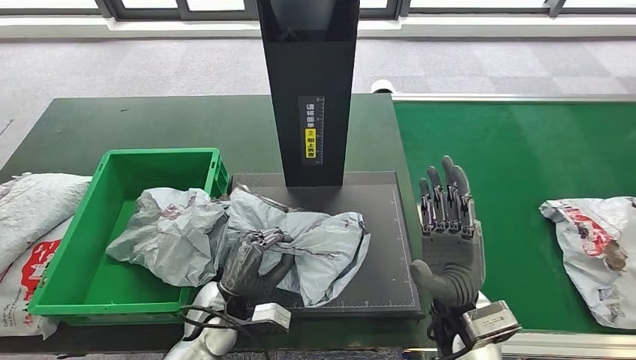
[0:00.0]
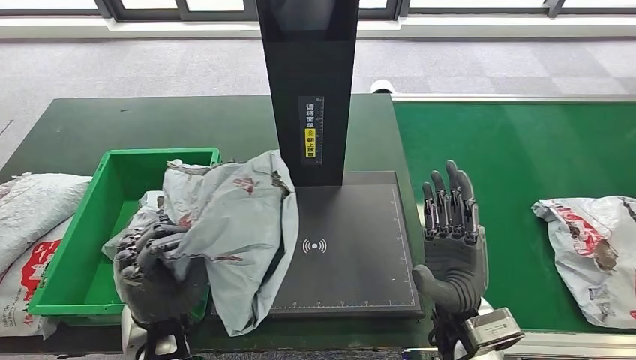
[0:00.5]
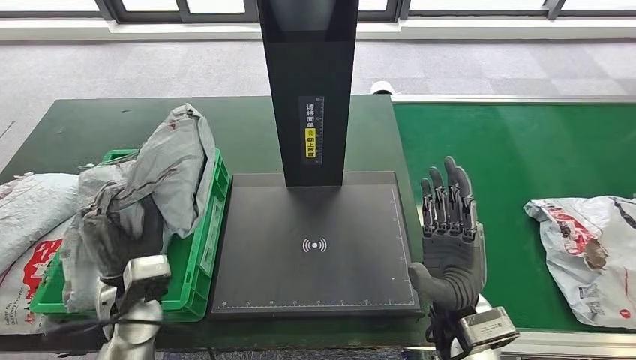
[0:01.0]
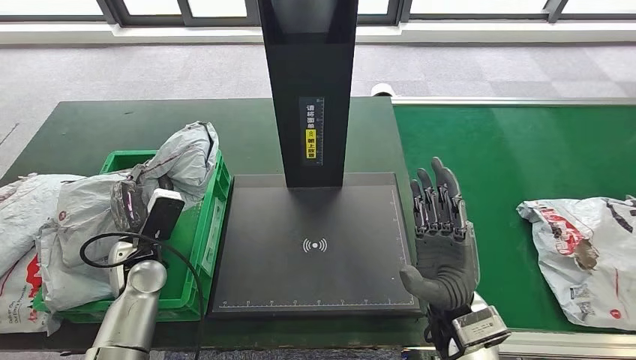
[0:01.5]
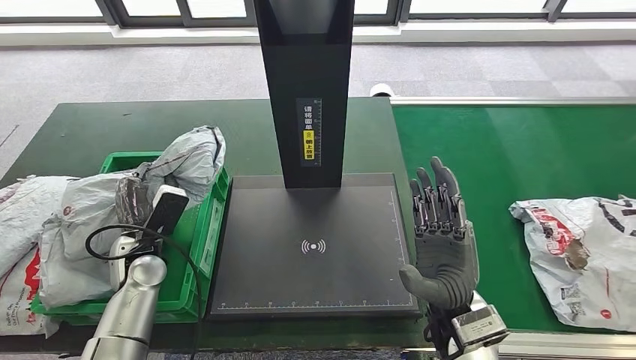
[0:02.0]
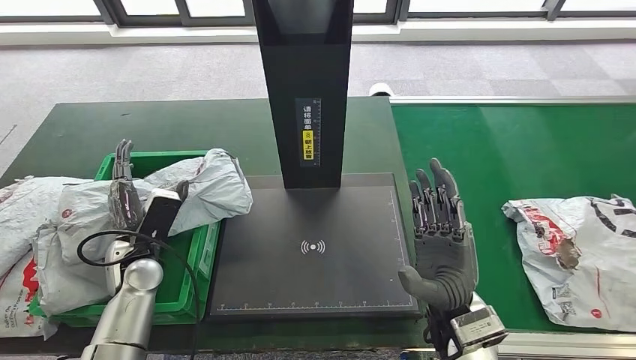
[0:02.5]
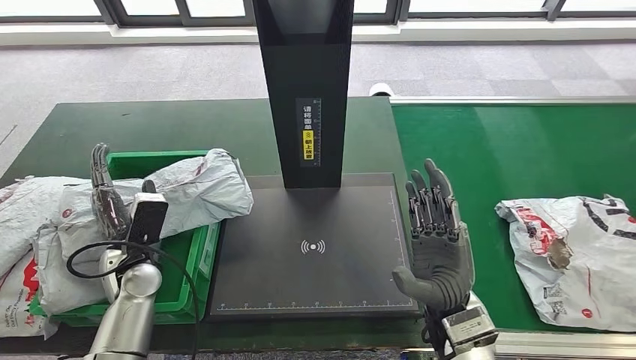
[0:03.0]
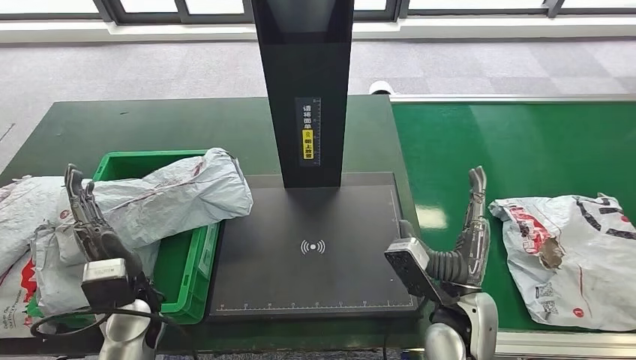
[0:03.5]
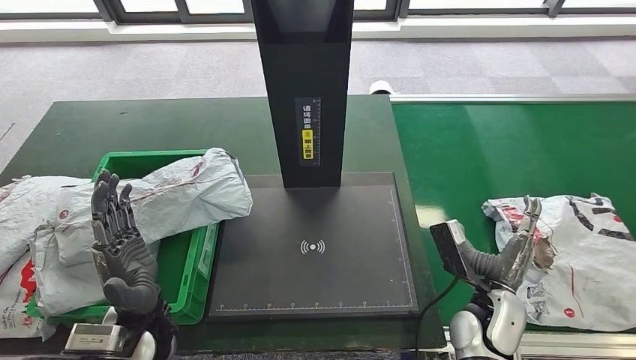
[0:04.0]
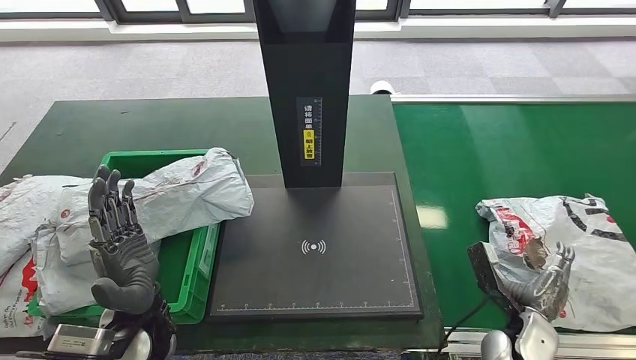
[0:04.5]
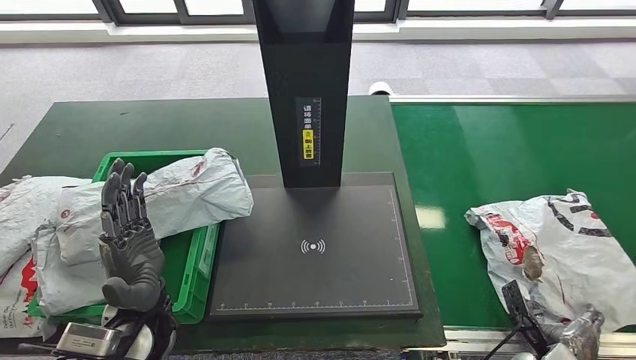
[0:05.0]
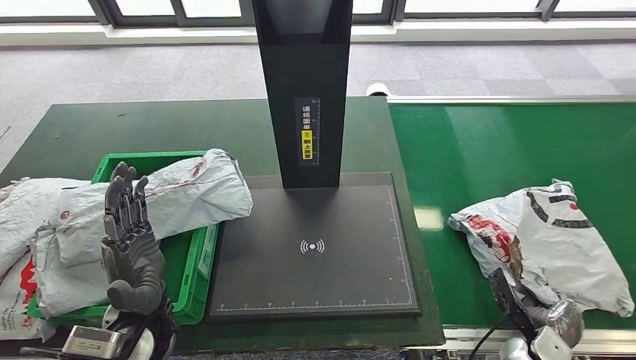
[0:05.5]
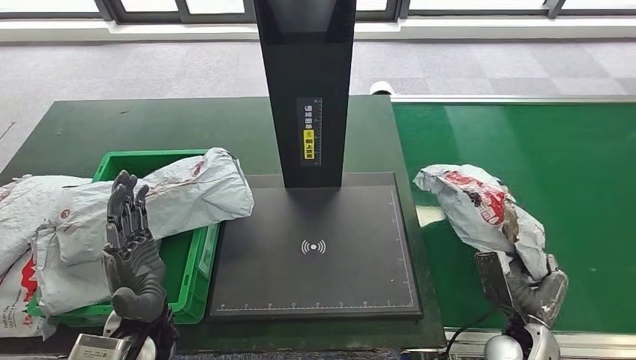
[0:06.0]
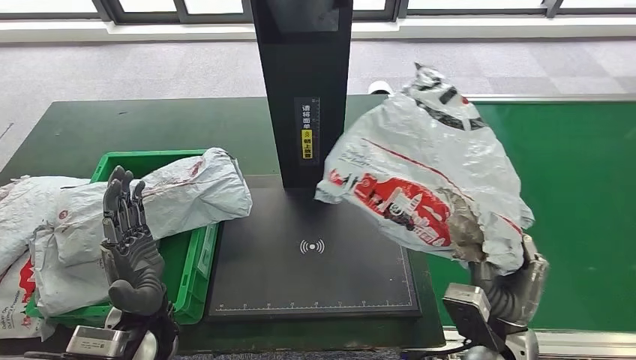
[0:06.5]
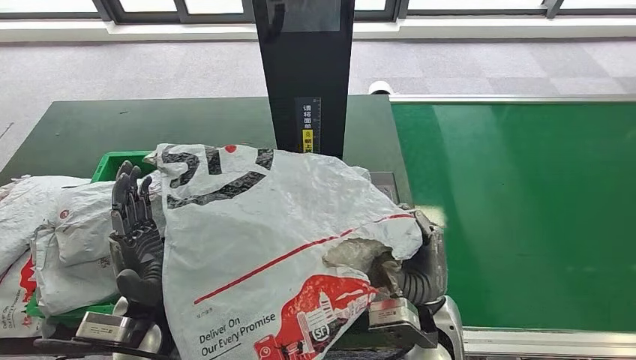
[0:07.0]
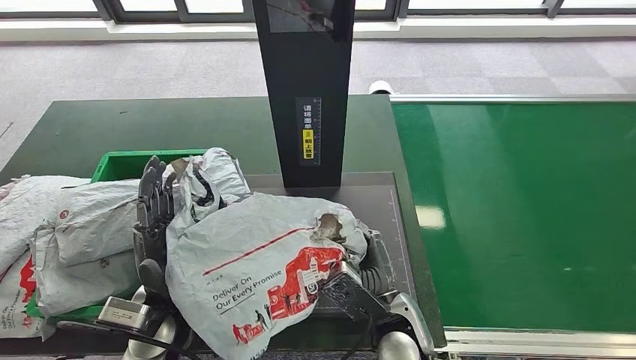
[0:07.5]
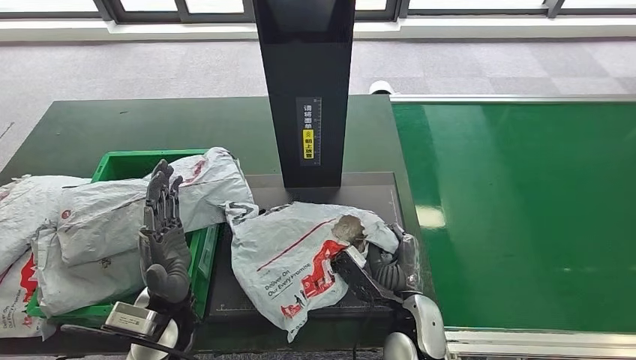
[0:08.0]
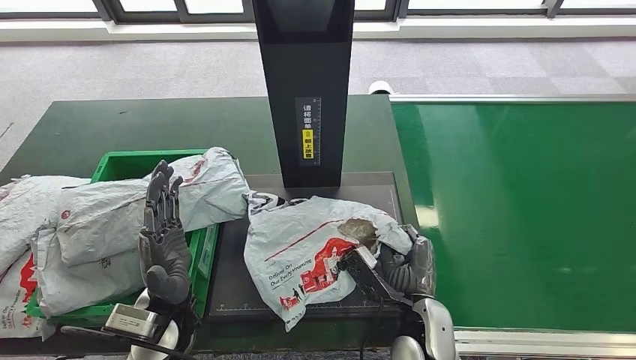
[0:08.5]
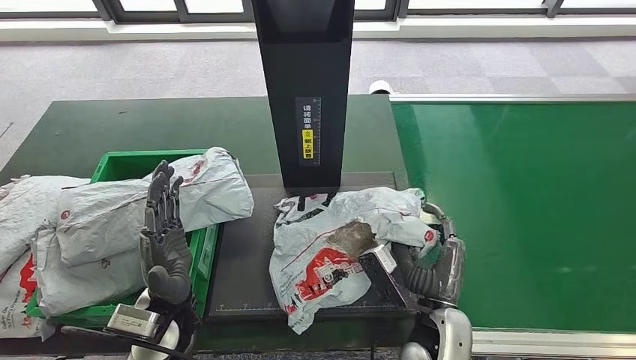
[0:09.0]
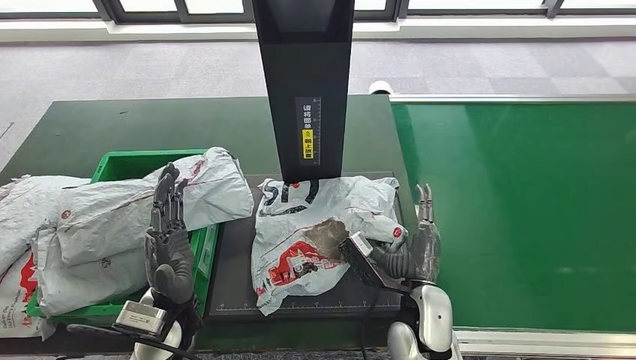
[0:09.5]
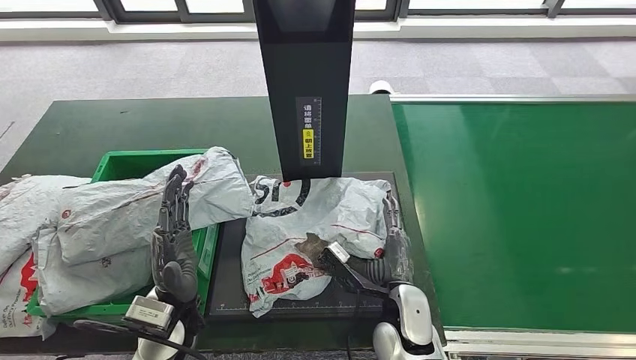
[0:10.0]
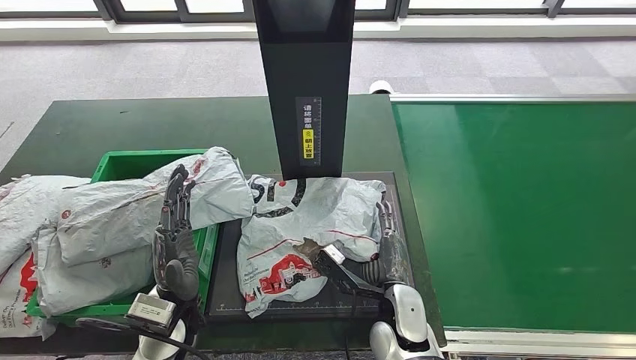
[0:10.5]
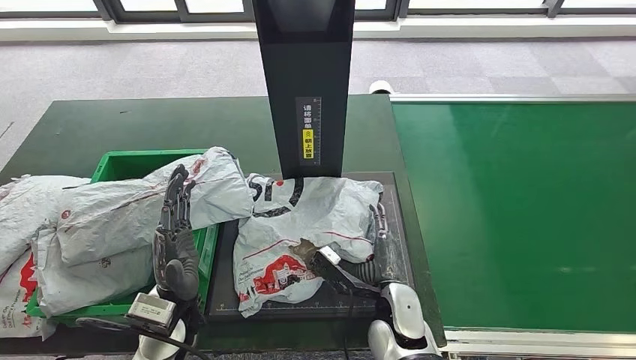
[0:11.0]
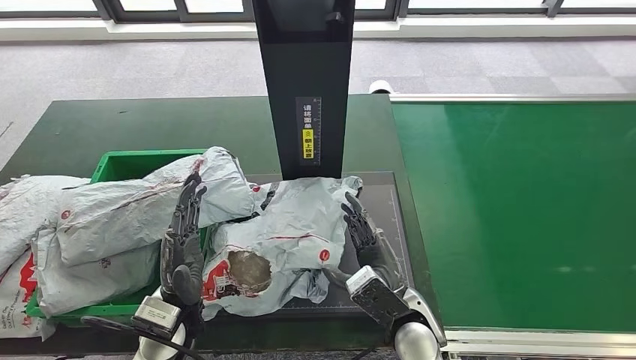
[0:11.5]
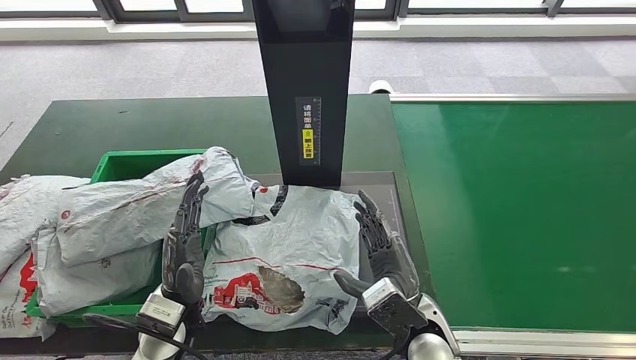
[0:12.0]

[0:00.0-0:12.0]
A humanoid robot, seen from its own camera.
Step, 0:00.5 to 0:03.0: Place the parcel into the delivery box.
Step, 0:03.5 to 0:06.0: Pick up the parcel from the conveyor belt.
Step, 0:06.5 to 0:11.5: Place the parcel onto the inbound machine.
0:04.0 to 0:06.0: The right hand travels to the right and downward by about 10 cm.
0:10.0 to 0:12.0: The right hand shifts by about 5 cm.

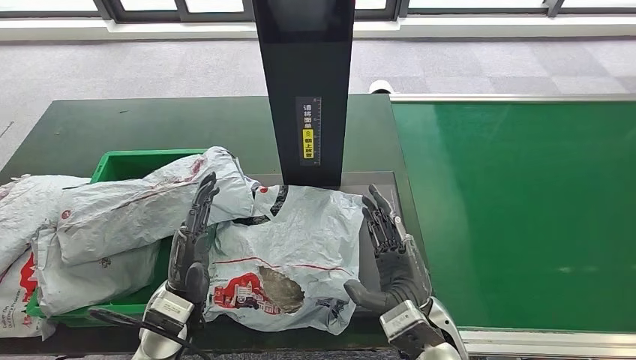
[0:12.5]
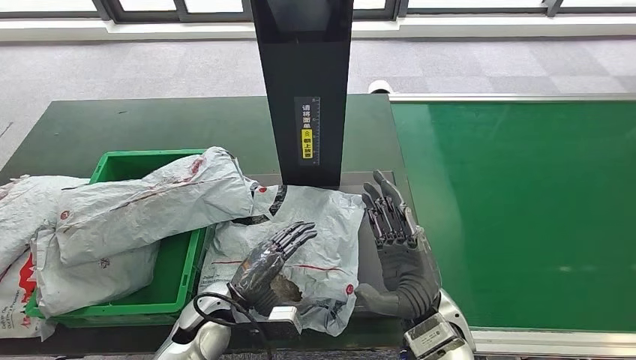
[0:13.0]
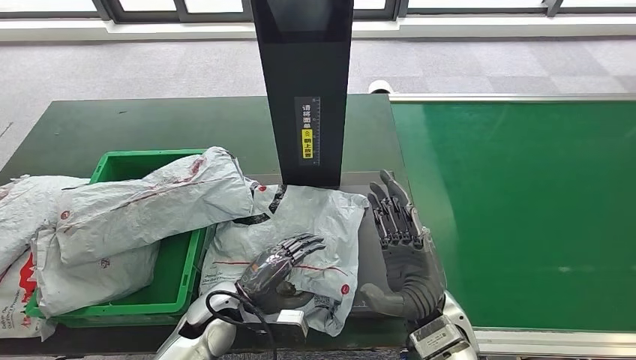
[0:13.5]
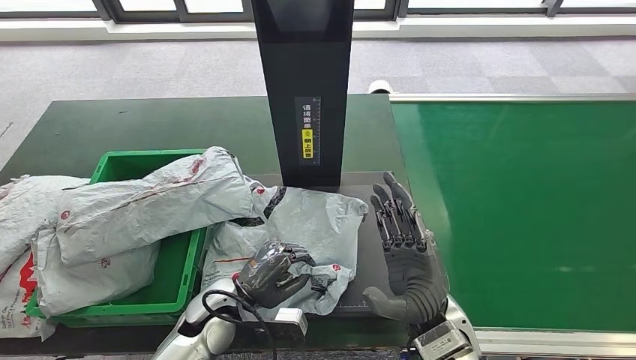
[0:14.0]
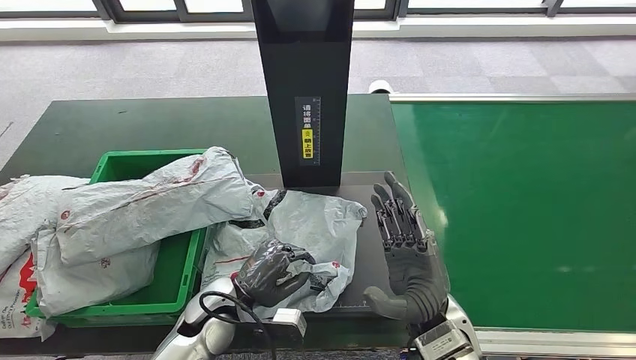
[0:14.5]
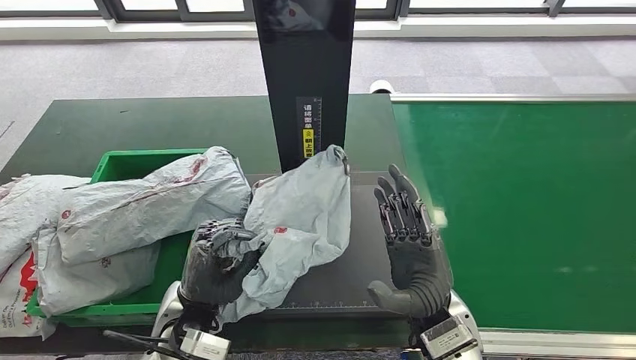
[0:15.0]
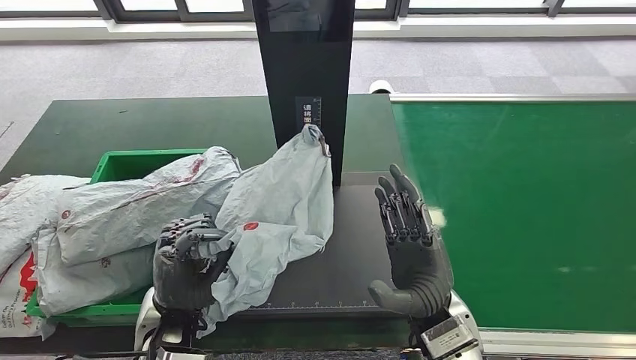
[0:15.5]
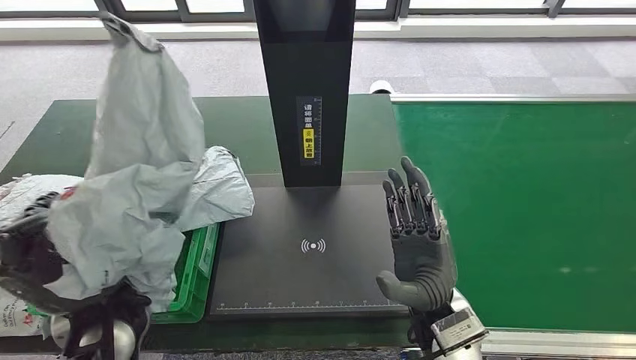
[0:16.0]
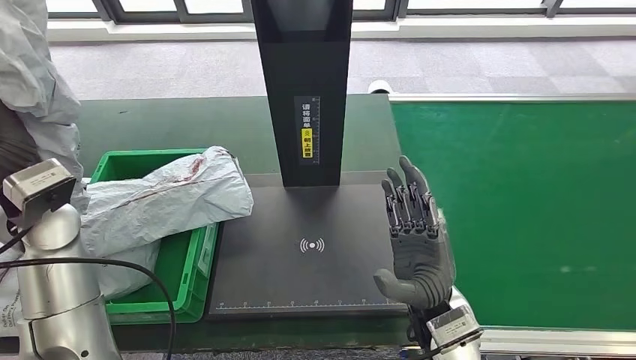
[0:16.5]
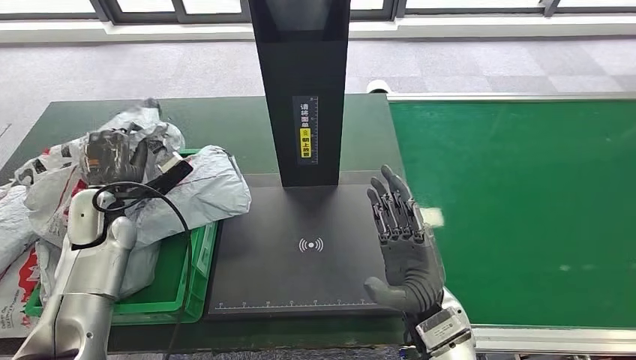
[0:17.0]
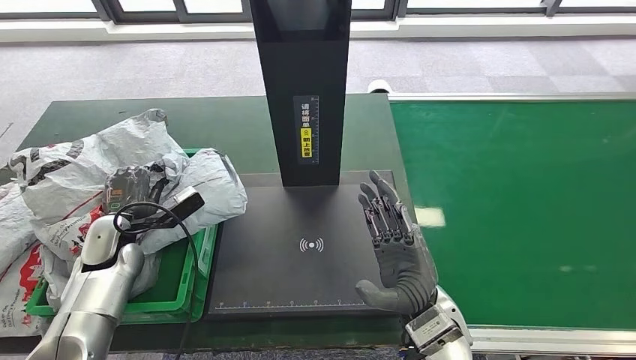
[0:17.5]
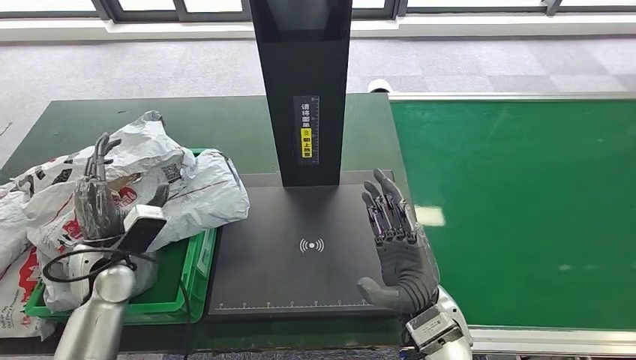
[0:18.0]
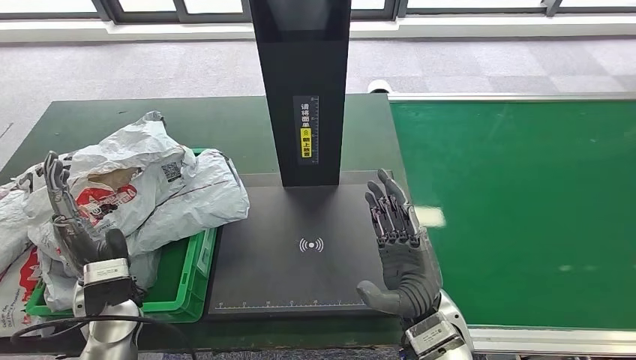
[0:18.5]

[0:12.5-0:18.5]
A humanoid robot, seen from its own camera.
Step, 0:12.5 to 0:15.5: Pick up the parcel from the inbound machine.
Step, 0:16.5 to 0:18.5: Place the parcel into the delivery box.
0:12.5 to 0:14.5: The left hand is displaced to the right by approximately 5 cm.

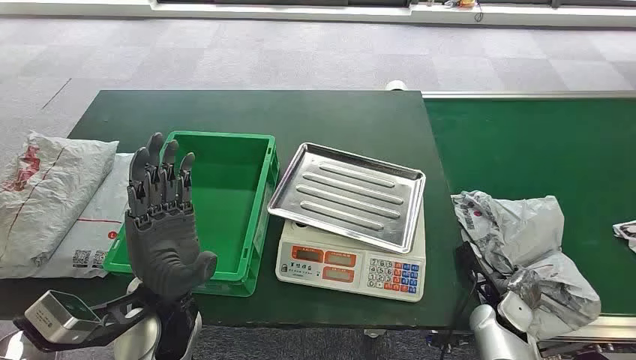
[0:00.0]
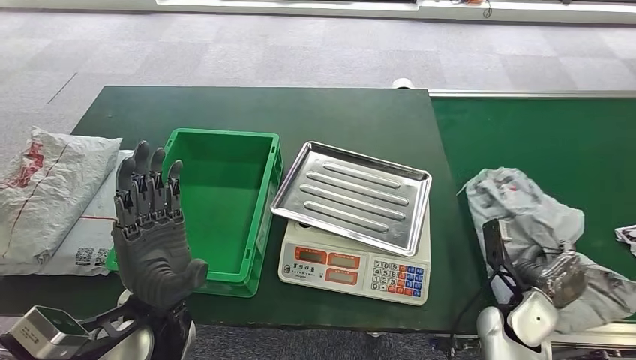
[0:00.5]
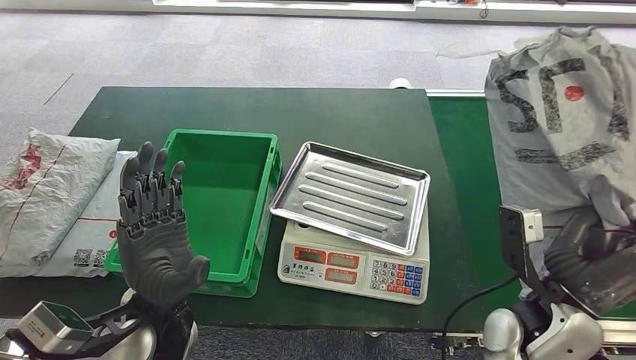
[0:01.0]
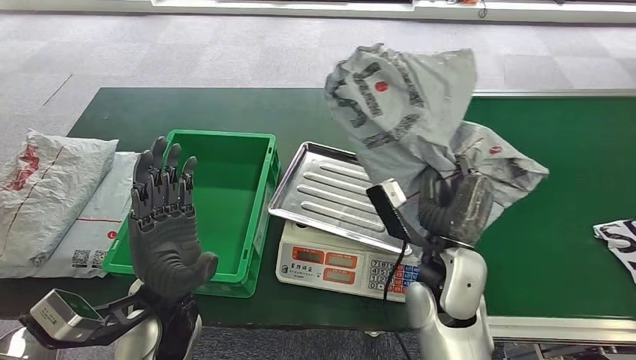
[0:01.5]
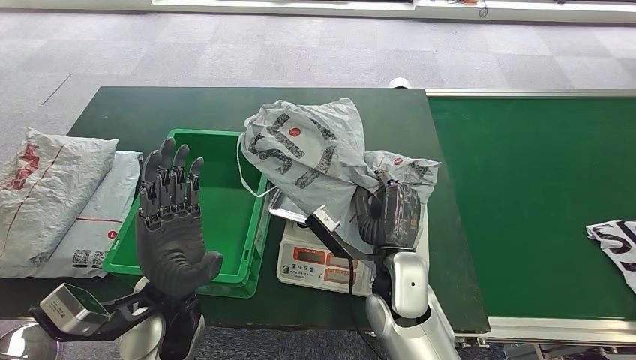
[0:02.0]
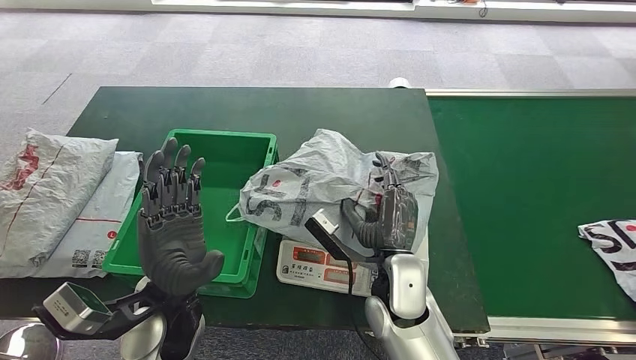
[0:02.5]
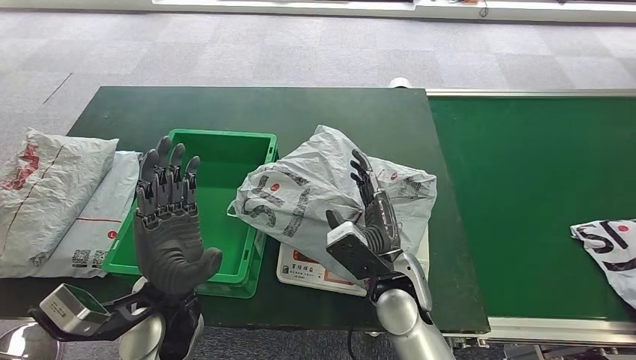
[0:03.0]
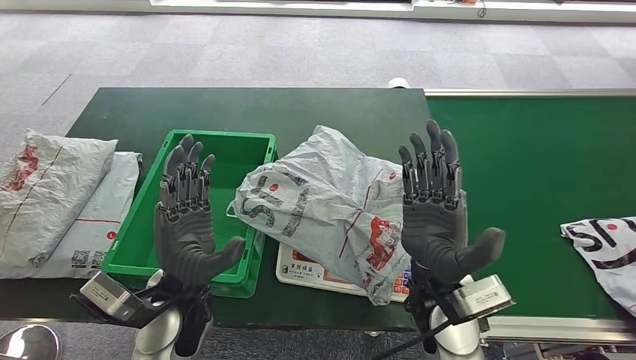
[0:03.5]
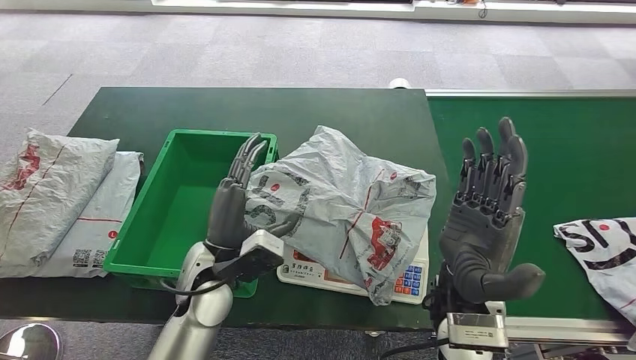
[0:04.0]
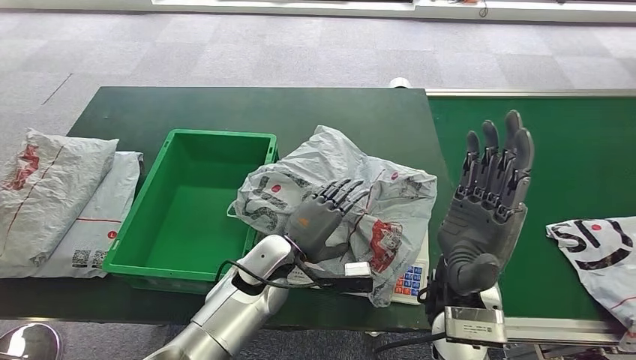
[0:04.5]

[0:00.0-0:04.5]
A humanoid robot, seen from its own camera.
Step, 0:00.0 to 0:01.0: Take the parcel off the conveyor belt.
Step, 0:01.5 to 0:03.5: Place the parcel onto the inbound machine.
